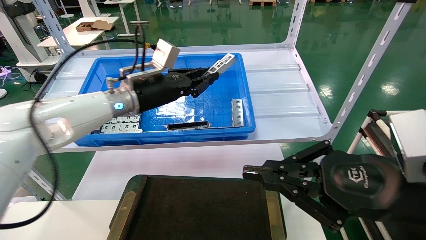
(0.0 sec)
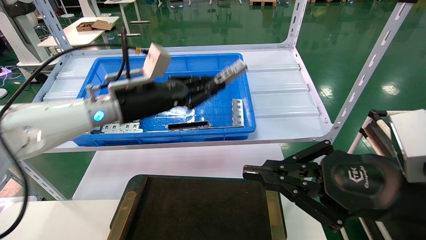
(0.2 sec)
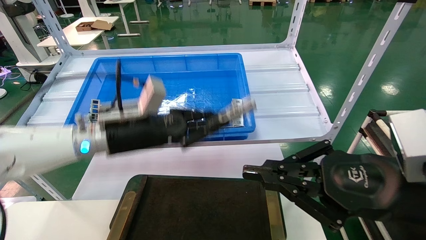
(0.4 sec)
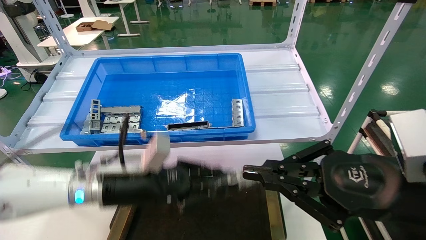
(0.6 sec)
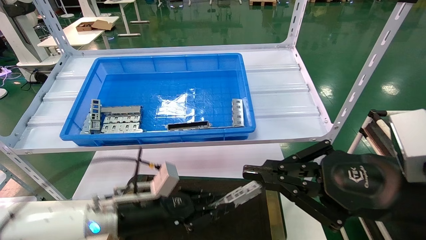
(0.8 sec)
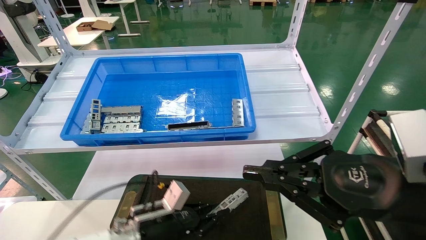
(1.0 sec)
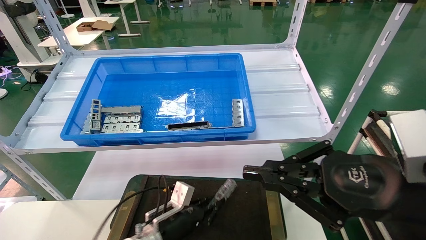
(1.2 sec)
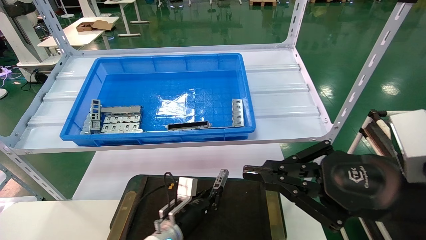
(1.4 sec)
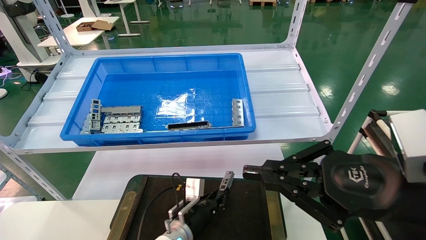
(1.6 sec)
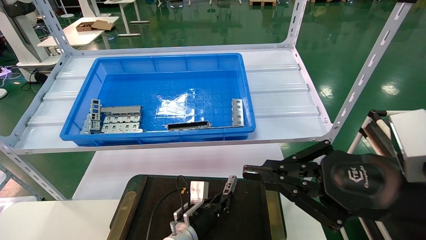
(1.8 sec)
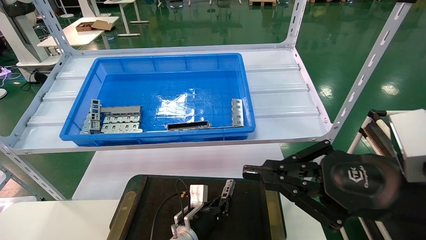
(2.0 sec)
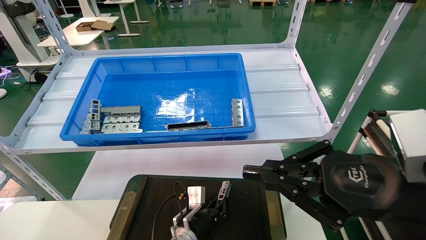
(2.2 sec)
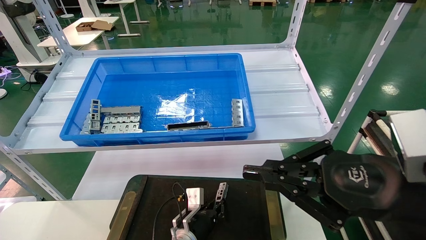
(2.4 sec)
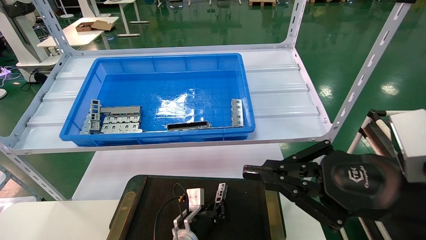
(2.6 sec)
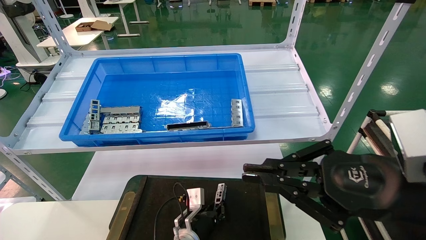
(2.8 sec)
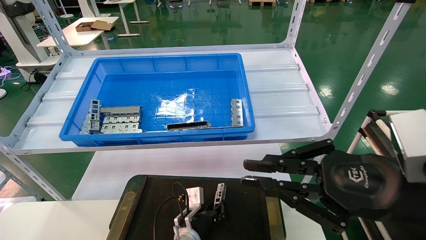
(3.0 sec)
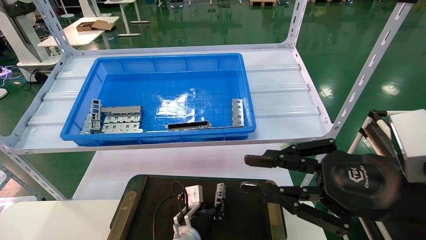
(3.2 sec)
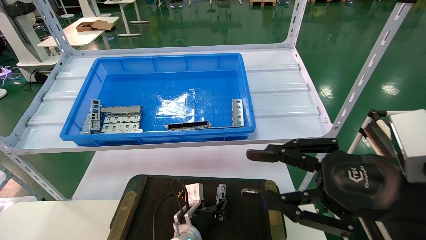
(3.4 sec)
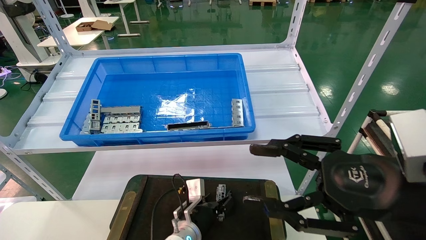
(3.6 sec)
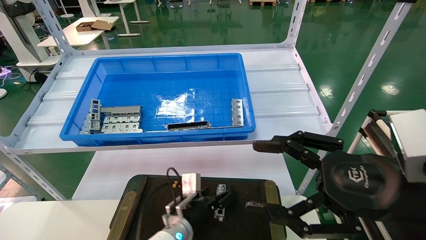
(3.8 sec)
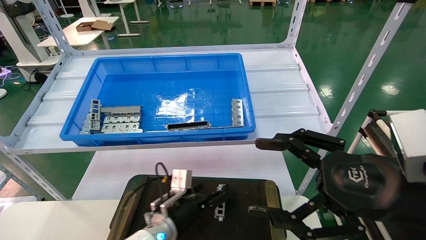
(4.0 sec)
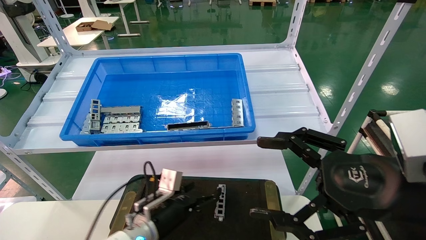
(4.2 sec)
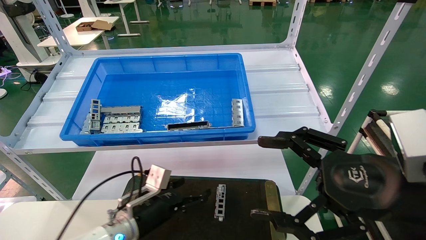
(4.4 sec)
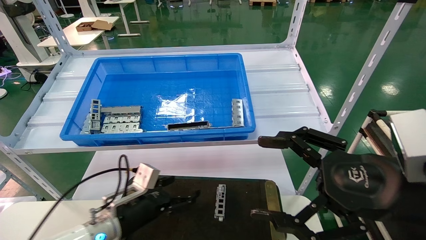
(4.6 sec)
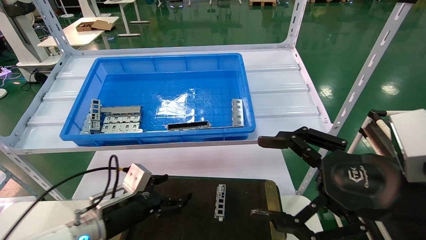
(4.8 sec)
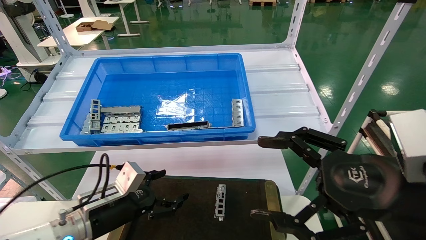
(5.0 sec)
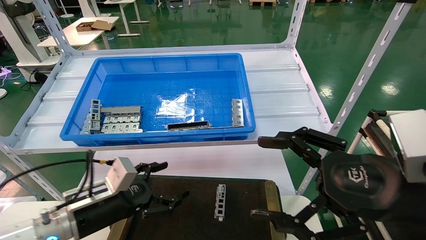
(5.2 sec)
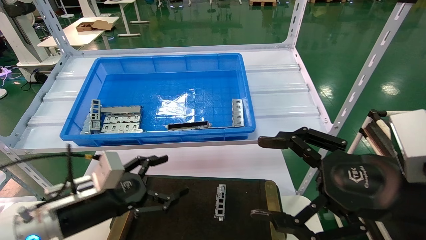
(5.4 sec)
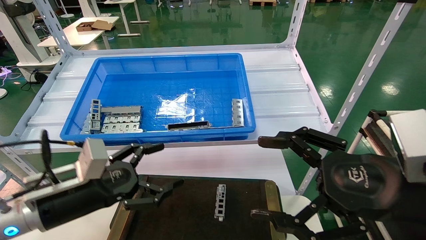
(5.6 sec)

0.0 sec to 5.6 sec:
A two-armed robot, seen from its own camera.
Task of the whole recording: Grasp the part with one hand and place it on the black container.
Step, 0.0 sec to 3.4 sec: Place the front USB bracket into the box.
0.0 sec to 1.4 sec: The left gripper heads downward, covering roughly 30 cm.
1.4 sec to 2.8 sec: The left gripper changes place by about 5 cm.
2.8 sec to 4.2 sec: The left gripper shifts roughly 10 cm upward and to the left, and opens, while the right gripper opens up.
4.2 sec to 5.6 sec: The left gripper goes approximately 20 cm upward, to the left and backward.

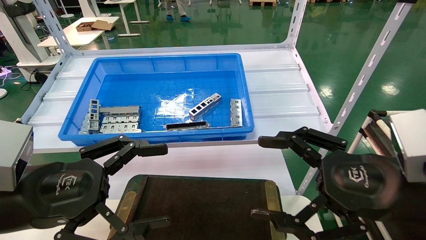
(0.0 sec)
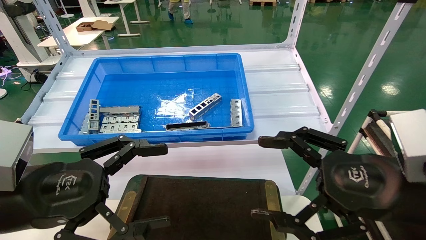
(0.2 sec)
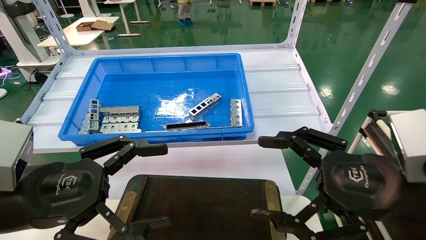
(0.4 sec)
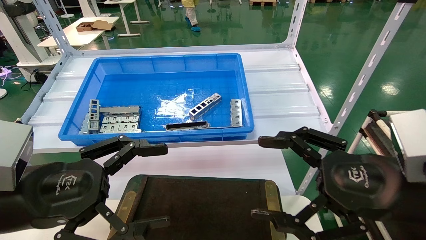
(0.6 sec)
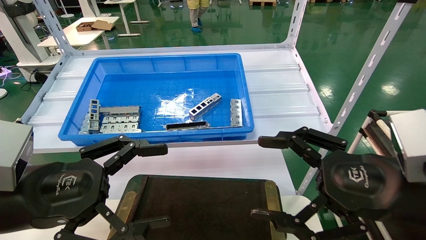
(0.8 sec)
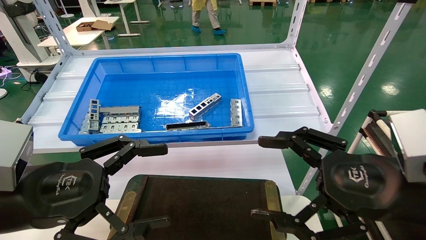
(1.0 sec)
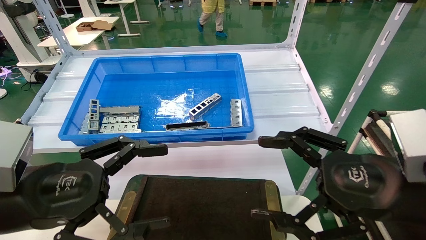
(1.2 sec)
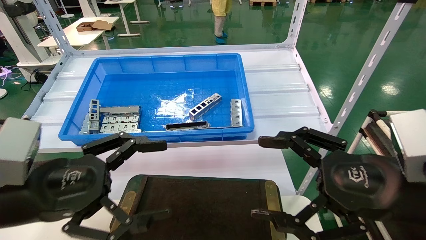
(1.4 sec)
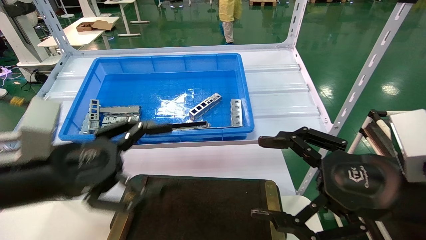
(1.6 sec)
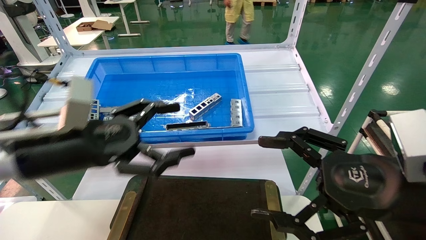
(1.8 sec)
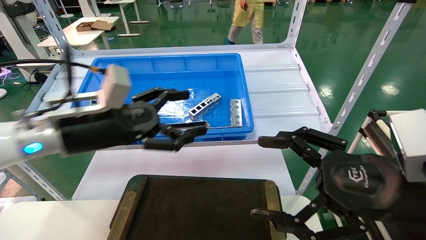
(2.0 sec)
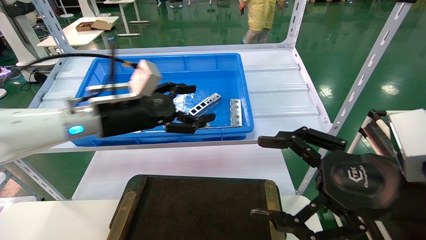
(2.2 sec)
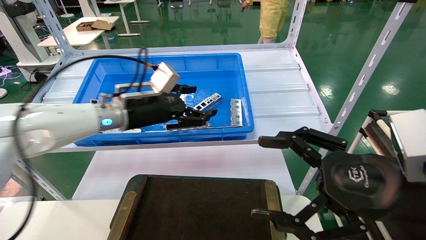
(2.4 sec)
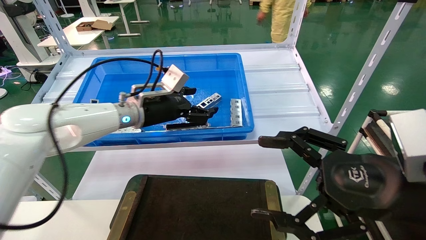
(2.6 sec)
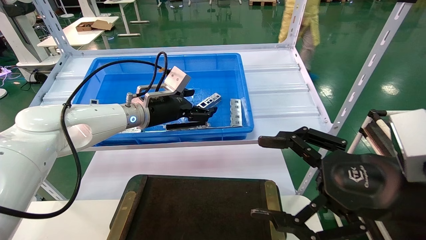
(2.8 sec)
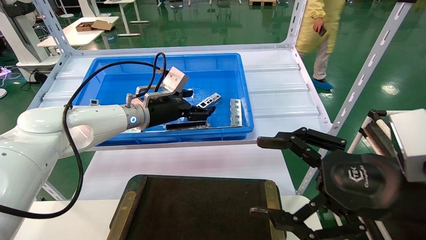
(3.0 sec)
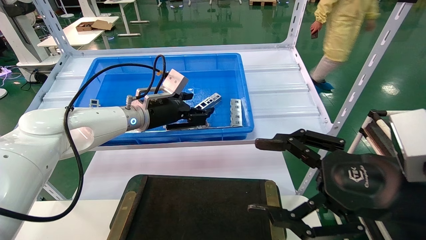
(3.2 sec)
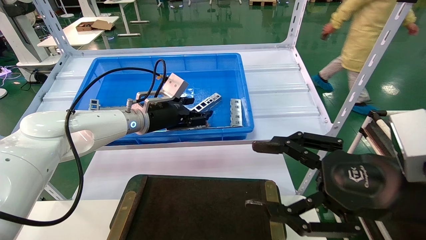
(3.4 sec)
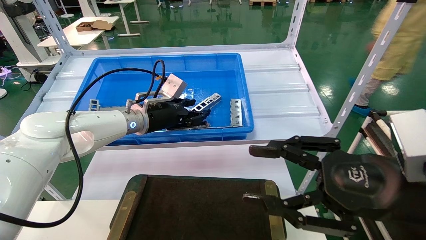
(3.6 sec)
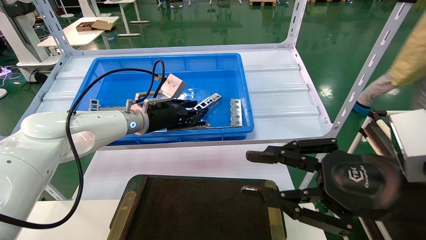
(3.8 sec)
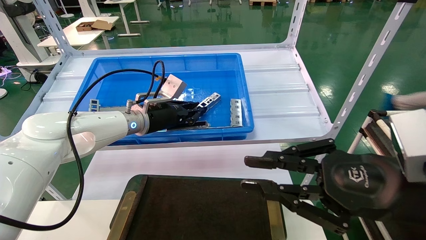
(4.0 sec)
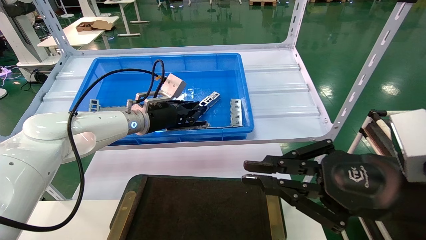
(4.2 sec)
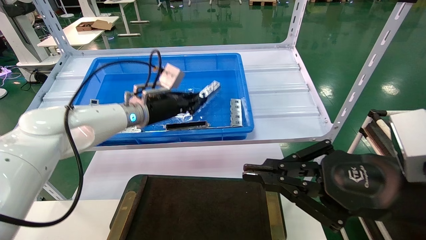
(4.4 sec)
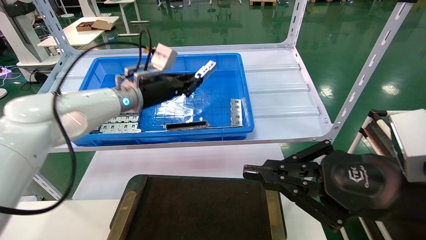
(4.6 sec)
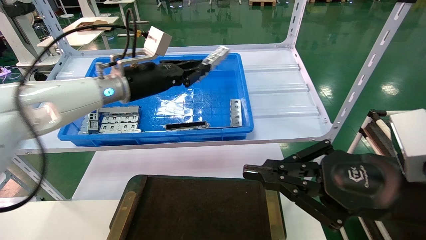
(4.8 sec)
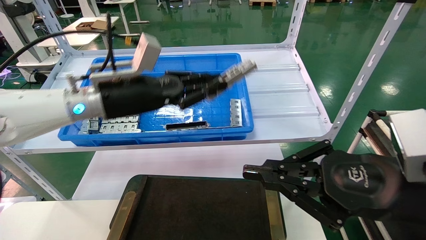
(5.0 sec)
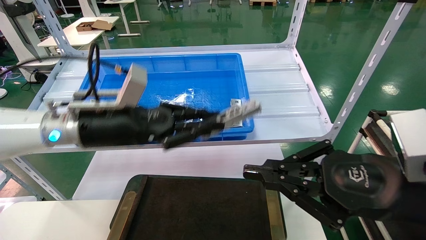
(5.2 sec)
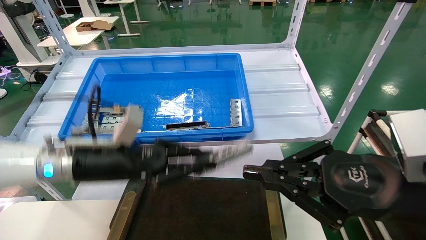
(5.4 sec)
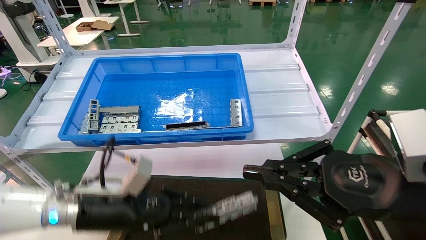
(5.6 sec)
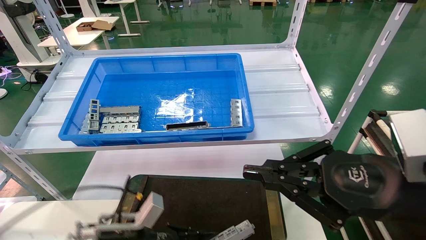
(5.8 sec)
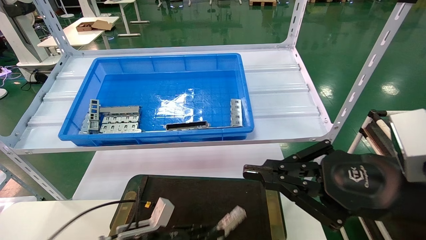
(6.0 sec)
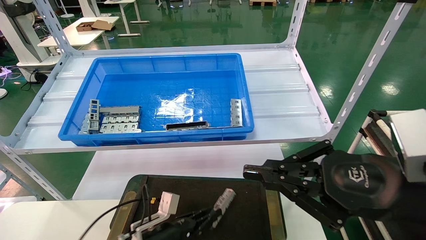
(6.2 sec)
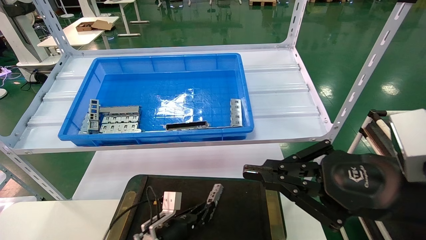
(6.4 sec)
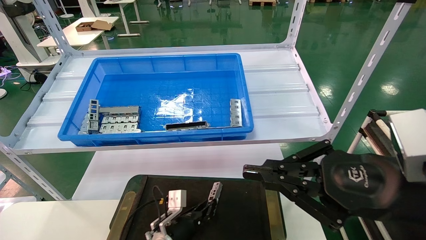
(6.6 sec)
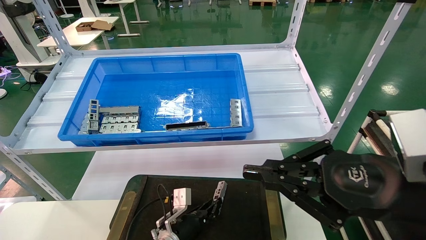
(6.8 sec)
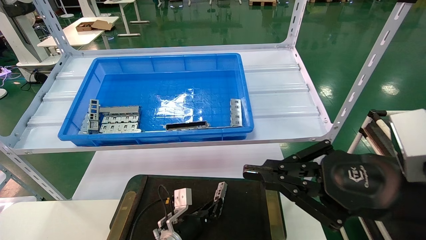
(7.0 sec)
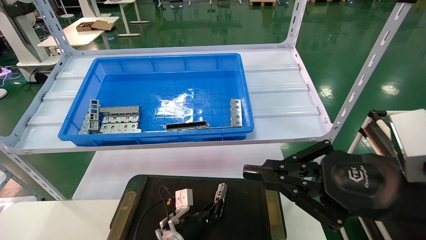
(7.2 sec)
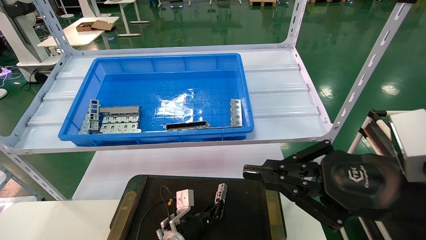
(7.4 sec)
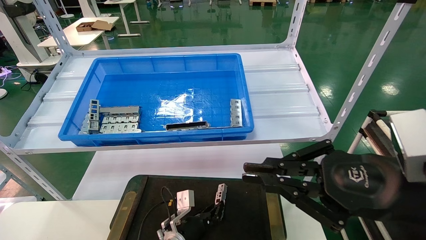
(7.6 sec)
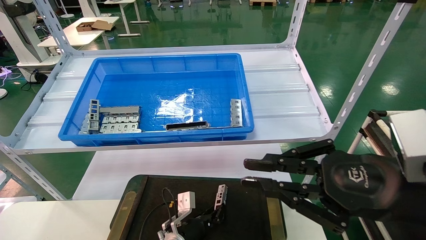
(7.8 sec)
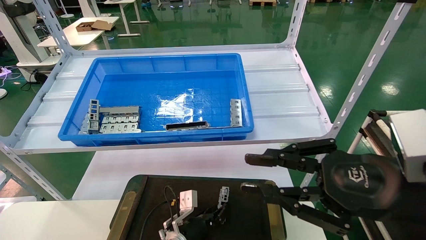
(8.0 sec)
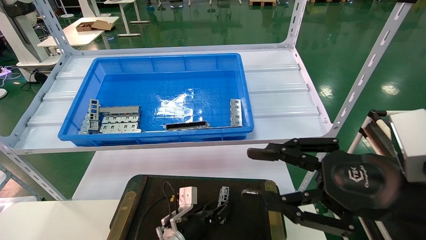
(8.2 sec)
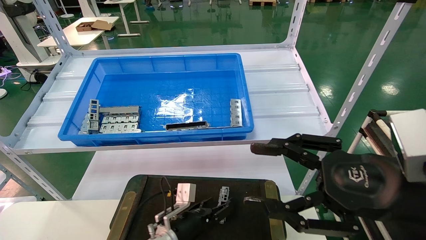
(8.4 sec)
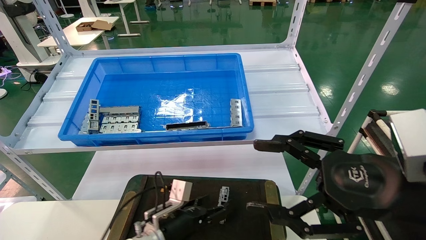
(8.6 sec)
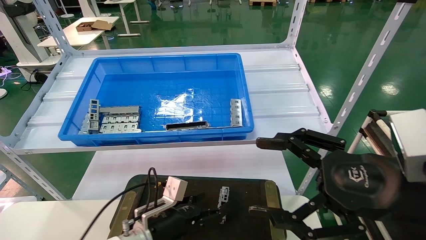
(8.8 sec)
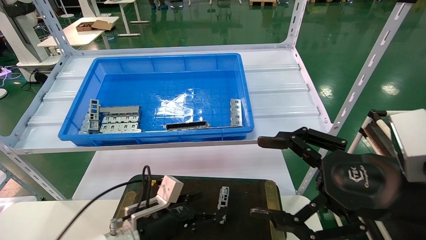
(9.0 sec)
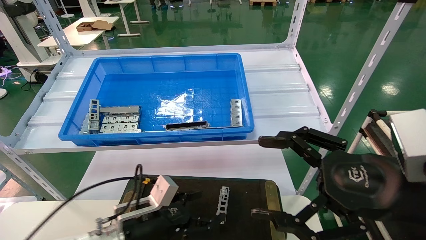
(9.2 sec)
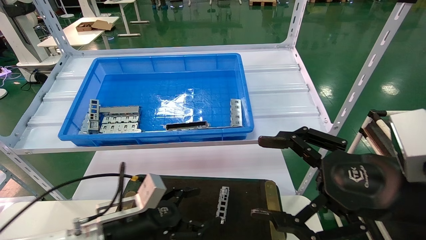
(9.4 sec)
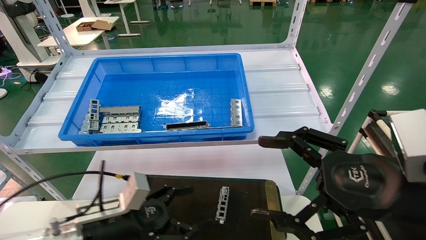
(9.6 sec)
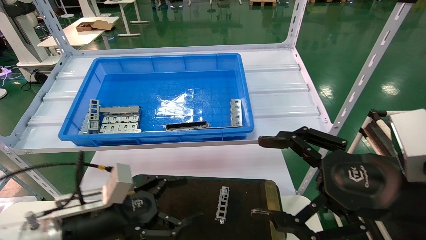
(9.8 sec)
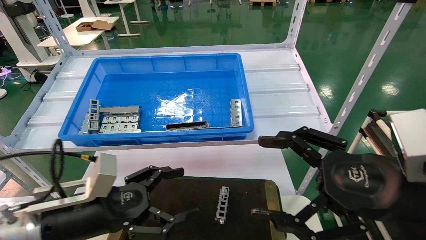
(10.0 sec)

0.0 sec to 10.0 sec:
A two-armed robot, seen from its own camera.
Task of the whole recording: Grasp the part with one hand and place it on the black container.
Step, 1.6 sec to 3.8 sec: Pick up the front USB bracket from the feeding area.
Step, 4.0 sec to 7.6 sec: Place the front USB bracket into the box.
0.0 sec to 1.4 sec: The grippers make only small movements.
1.4 sec to 2.8 sec: The left gripper heads forward, covering roughly 25 cm.
2.8 sec to 4.2 sec: The left gripper closes up. The right gripper closes.
4.2 sec to 5.8 sec: The left gripper heads downward and backward, covering some 25 cm.
5.8 sec to 7.2 sec: The left gripper travels downward, to the right and forward by some 20 cm.
7.2 sec to 8.6 sec: The right gripper opens its fingers; the left gripper is displaced upward by roughly 5 cm, and opens up.
8.6 sec to 10.0 sec: The left gripper goes roughly 20 cm upward, to the left and backward.
